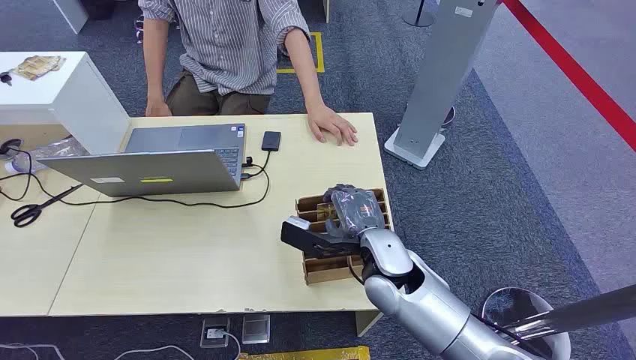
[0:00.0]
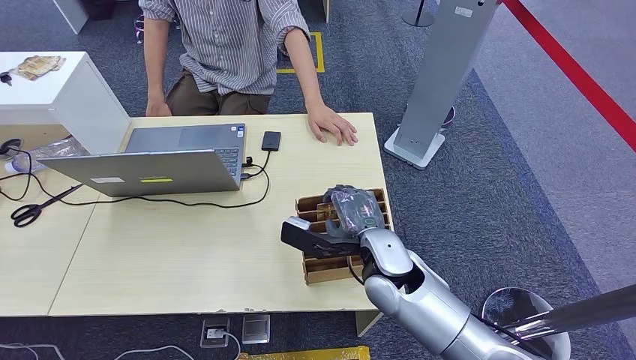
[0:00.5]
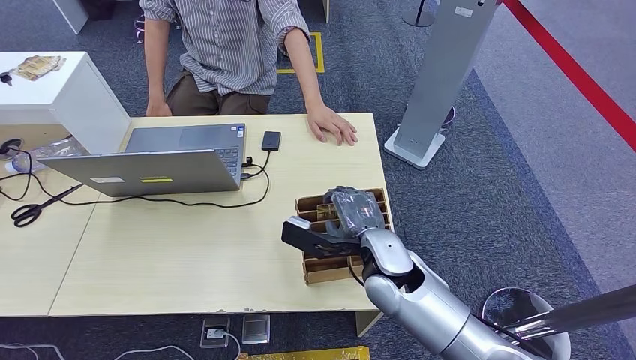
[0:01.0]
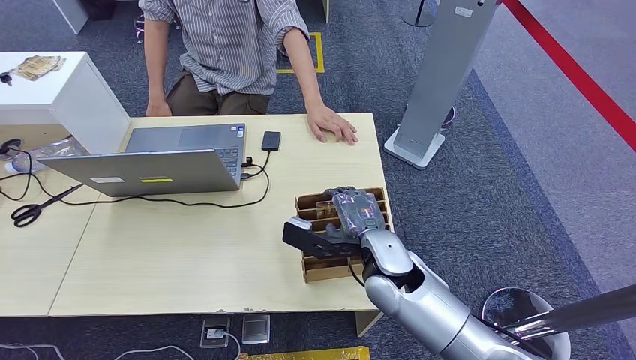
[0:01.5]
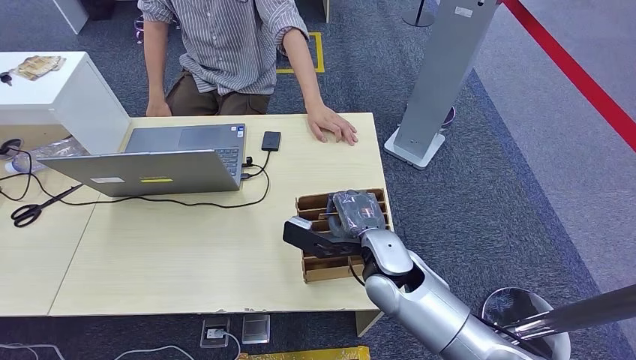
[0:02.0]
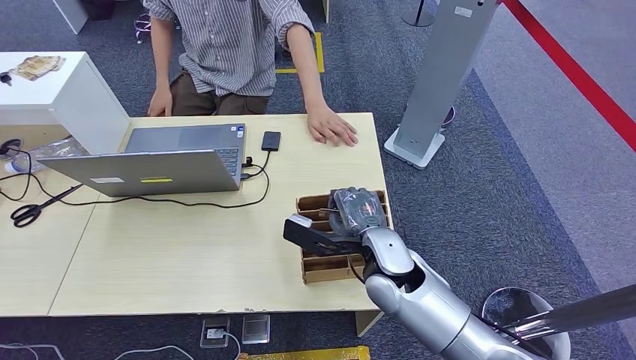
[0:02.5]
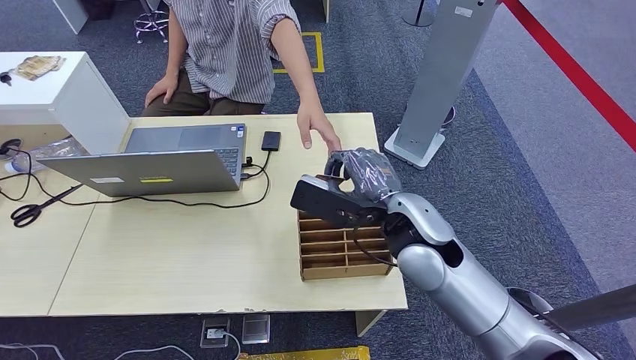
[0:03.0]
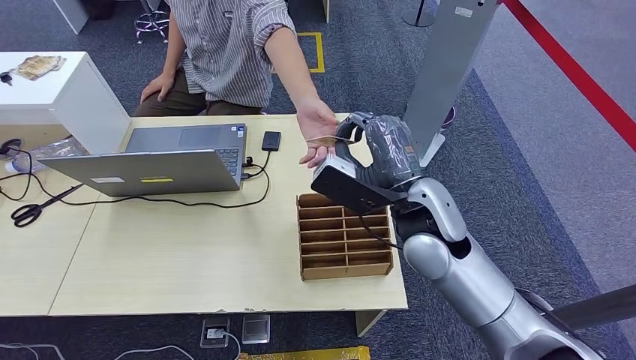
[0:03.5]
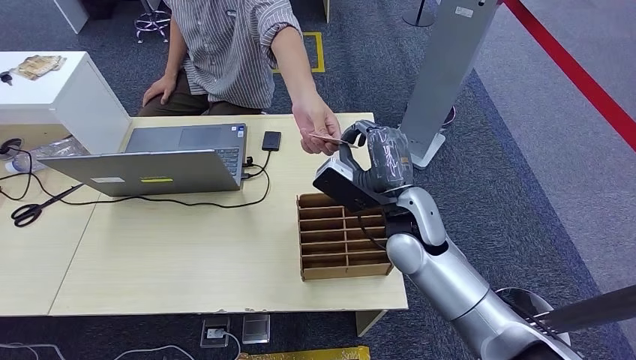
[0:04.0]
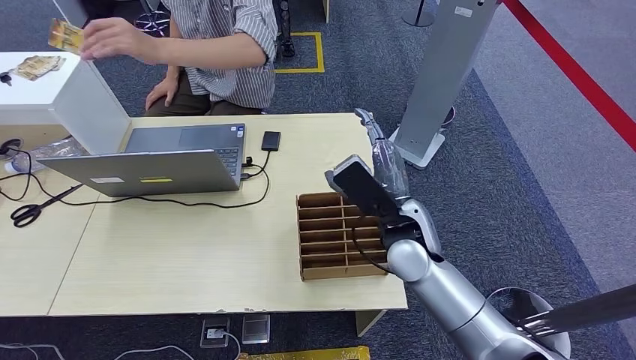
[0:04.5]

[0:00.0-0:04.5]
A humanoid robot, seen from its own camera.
Step, 0:00.0 to 0:02.5: Pick up the key card from the card box.
Step, 0:04.0 to 0:04.5: Hand the key card to the target.

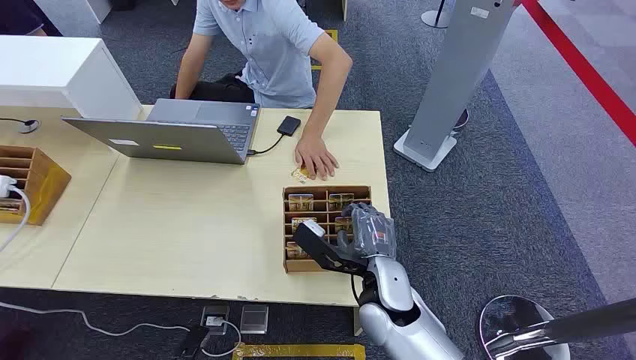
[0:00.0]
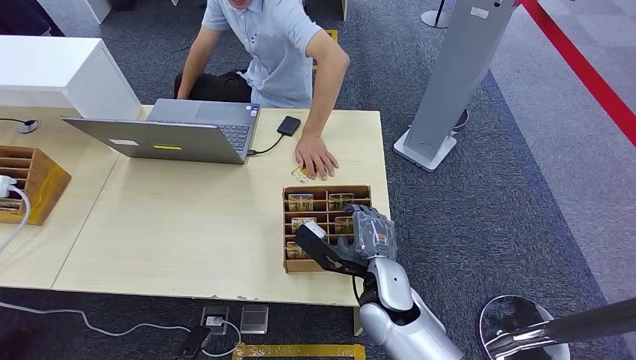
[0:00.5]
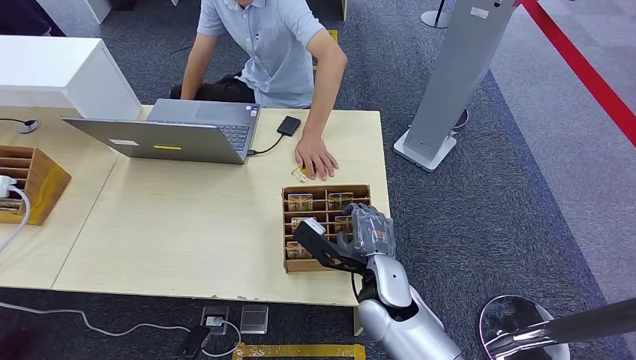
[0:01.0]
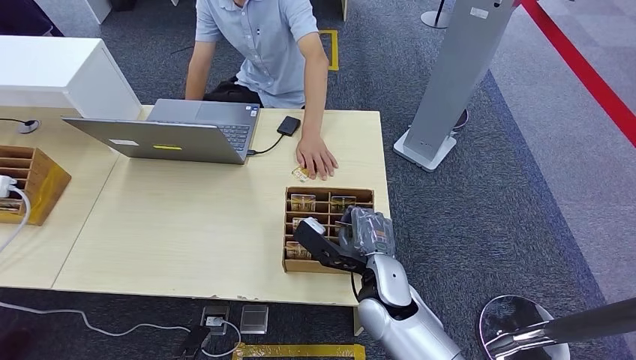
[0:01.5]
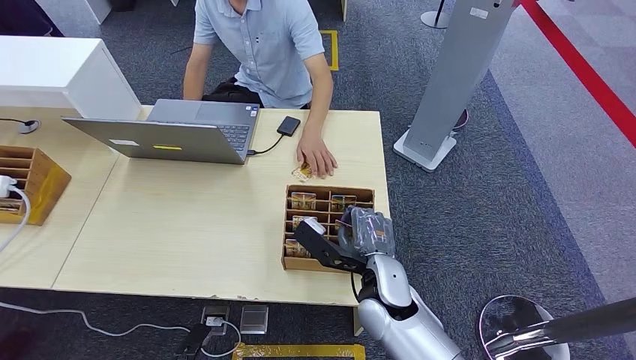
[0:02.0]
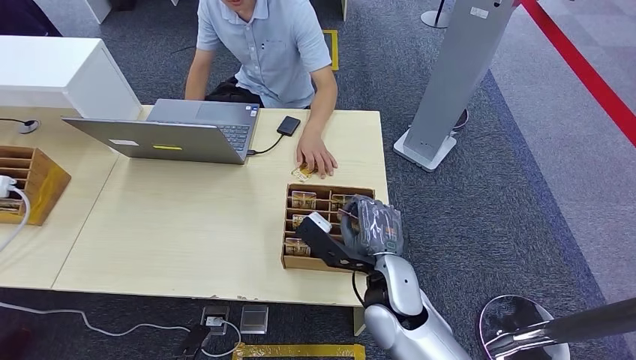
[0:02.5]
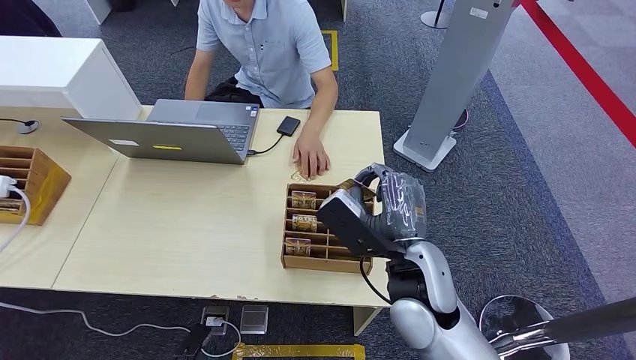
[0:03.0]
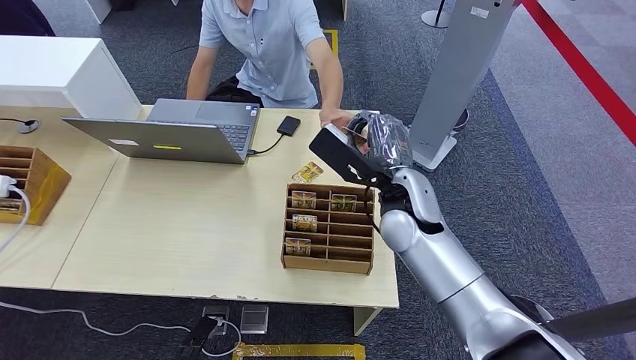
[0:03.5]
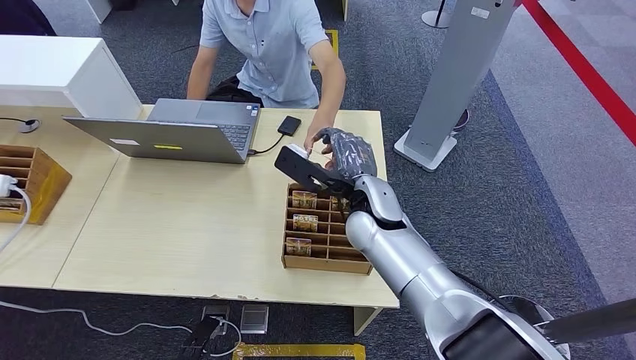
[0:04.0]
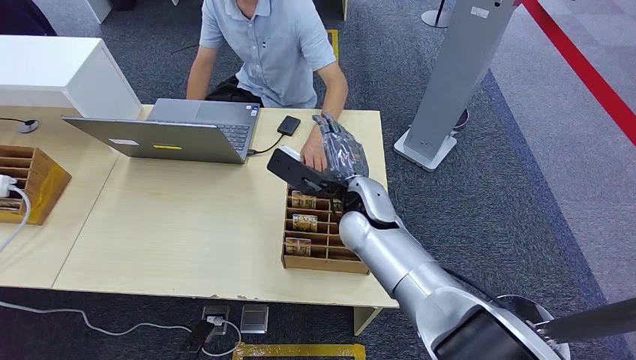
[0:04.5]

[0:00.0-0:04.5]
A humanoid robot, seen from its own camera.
Step, 0:00.0 to 0:02.5: Pick up the key card from the card box.
Step, 0:03.5 to 0:04.0: Hand the key card to the target.
0:02.0 to 0:04.5: The right hand travels forward and upward by roughly 15 cm.
